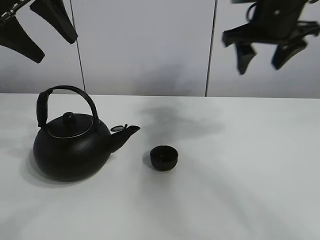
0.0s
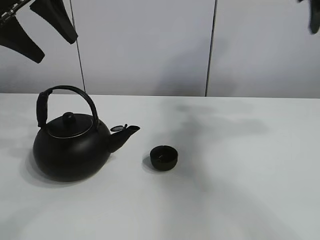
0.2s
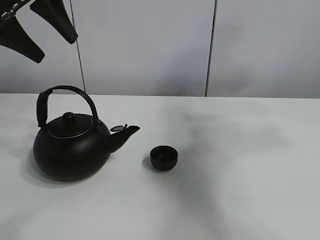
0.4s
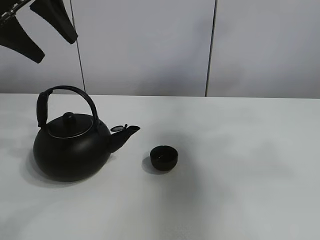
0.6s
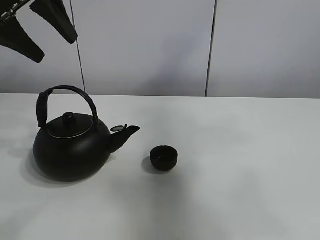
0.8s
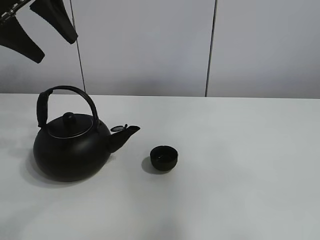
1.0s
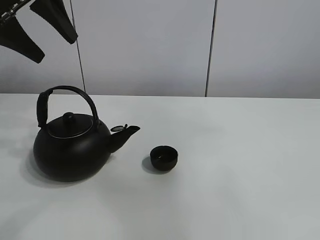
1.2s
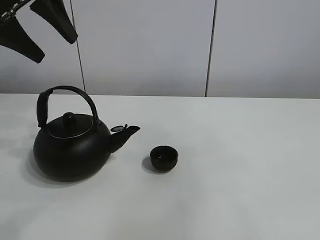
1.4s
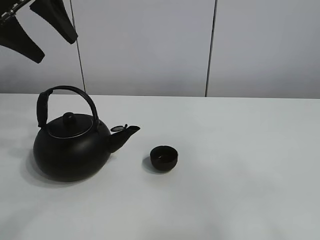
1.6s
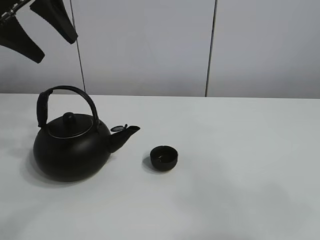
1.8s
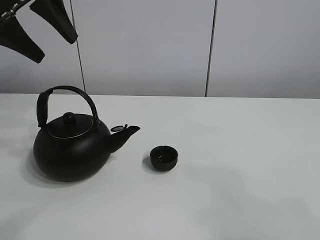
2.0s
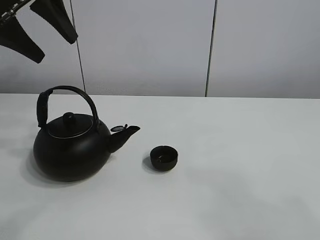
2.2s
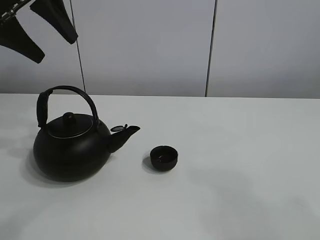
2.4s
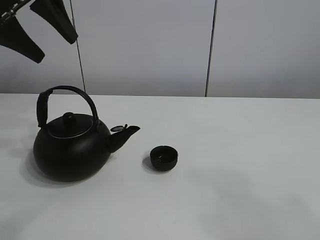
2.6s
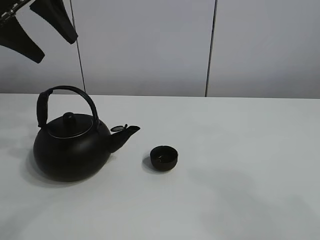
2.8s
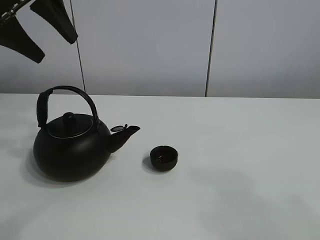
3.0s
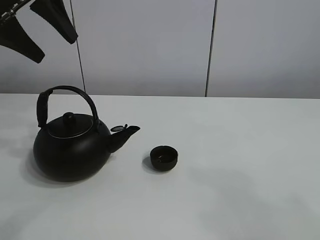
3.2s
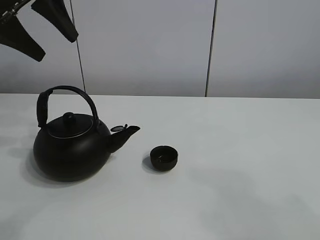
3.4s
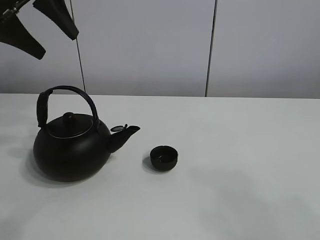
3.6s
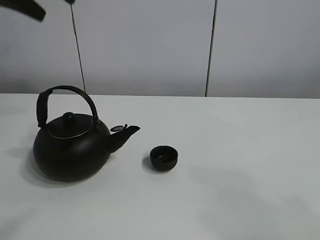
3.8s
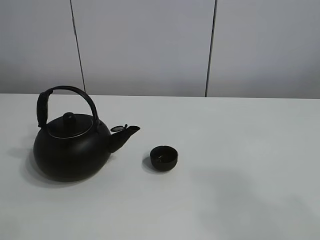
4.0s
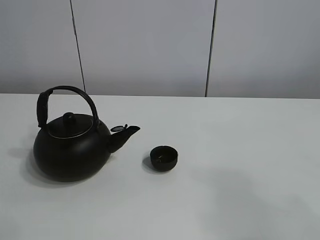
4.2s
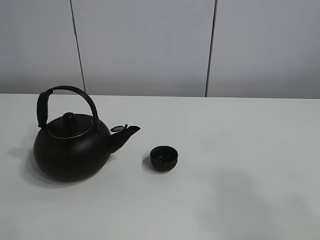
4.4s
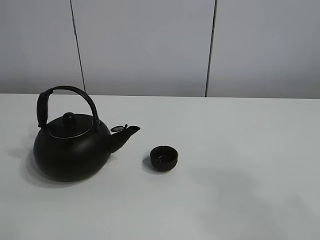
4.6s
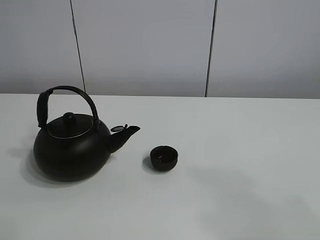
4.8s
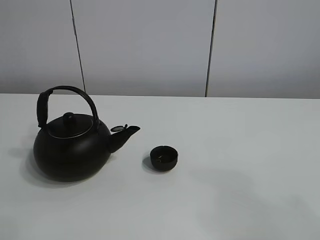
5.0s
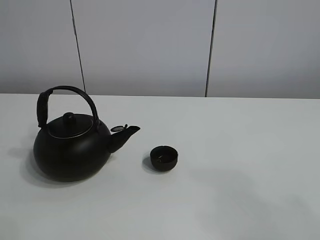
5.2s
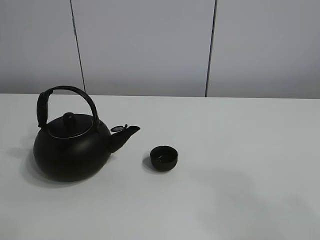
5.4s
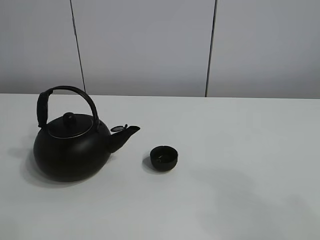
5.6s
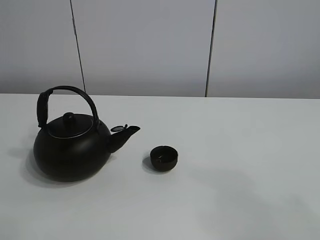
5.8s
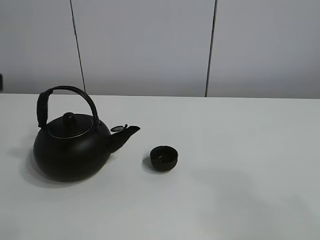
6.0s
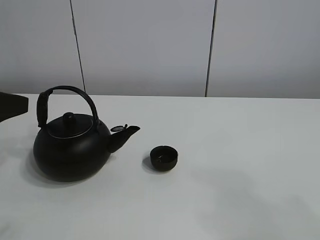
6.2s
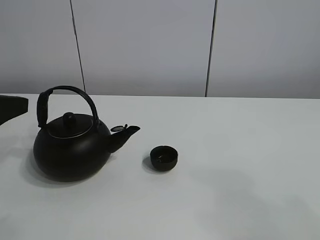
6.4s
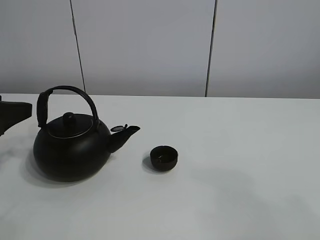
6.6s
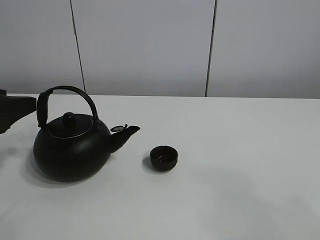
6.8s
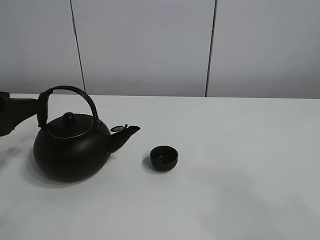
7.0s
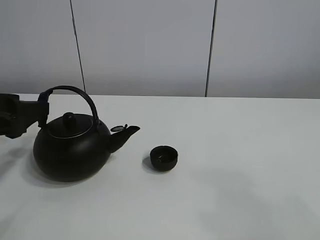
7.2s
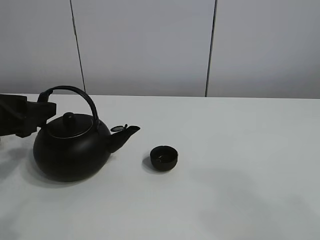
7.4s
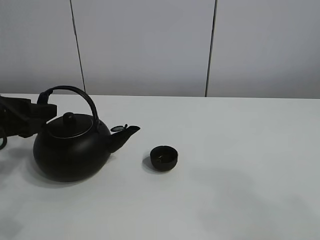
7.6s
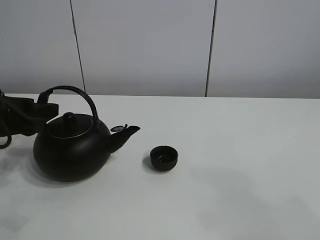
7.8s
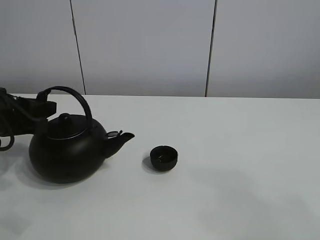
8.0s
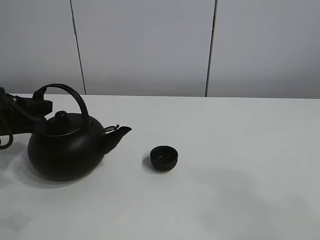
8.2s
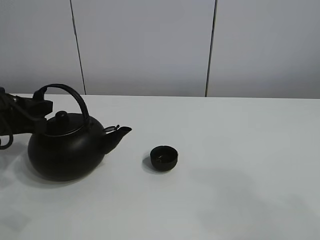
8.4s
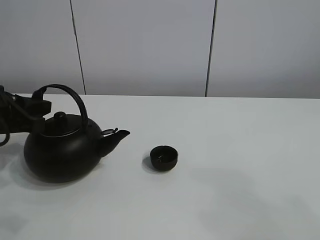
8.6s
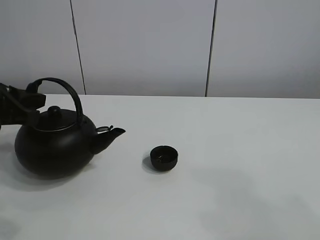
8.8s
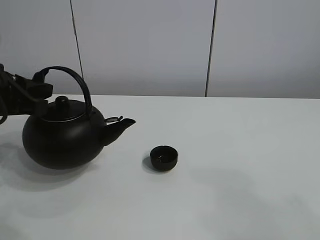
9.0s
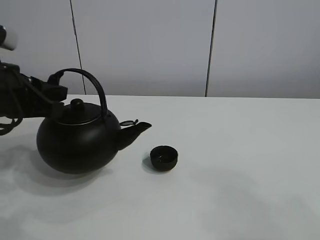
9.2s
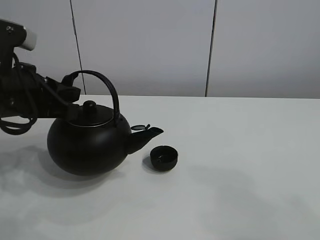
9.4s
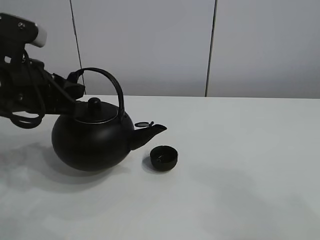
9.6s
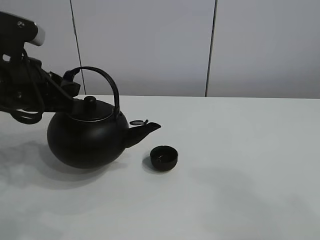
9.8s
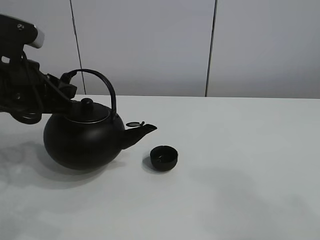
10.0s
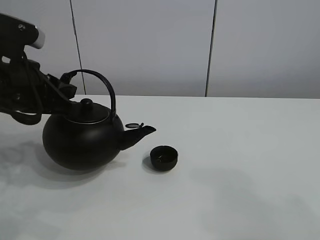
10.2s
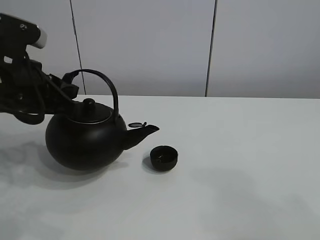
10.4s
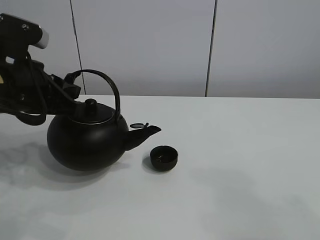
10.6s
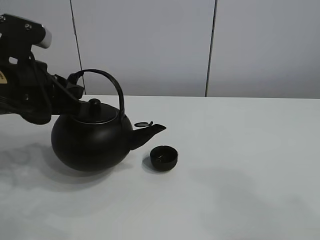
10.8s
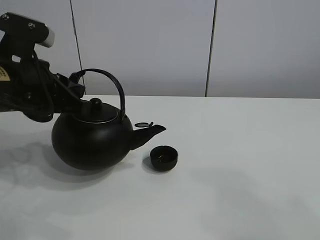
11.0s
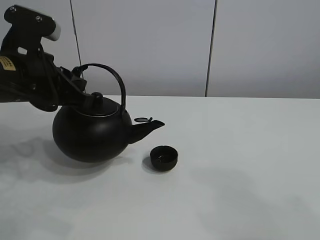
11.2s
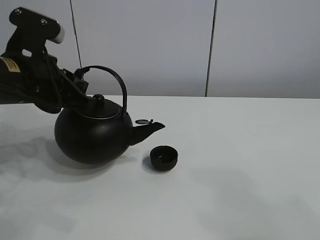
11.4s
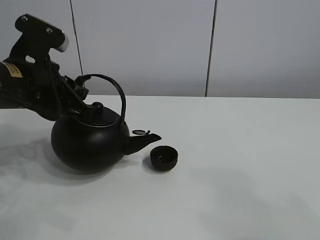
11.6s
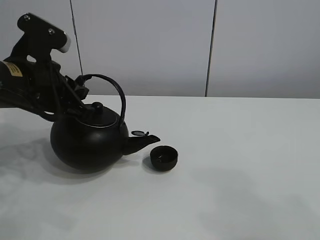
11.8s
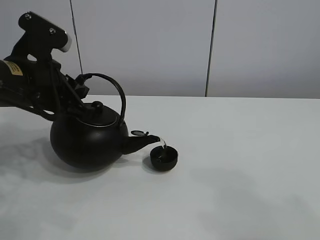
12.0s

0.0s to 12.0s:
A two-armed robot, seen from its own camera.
Task of the whole recording: pour tea into the teacup.
Step, 0.0s to 8.6s: Pick up the teapot with the left gripper.
0.0s to 1.6s: The right gripper moves backward, approximately 40 cm.
1.6s to 3.0s: The right gripper goes about 10 cm downward.
3.0s to 4.4s: The left gripper travels backward and upward by approximately 25 cm.
6.0s to 7.6s: The left gripper moves downward and forward, about 15 cm.
7.6s to 9.0s: The left gripper closes its fingers.
9.0s to 10.4s: The left gripper shifts by approximately 5 cm.
10.4s to 12.0s: The grippers make only small movements.

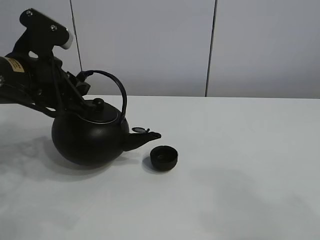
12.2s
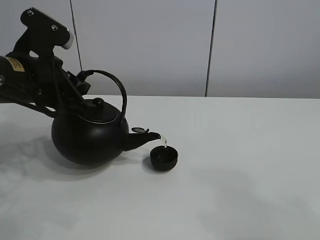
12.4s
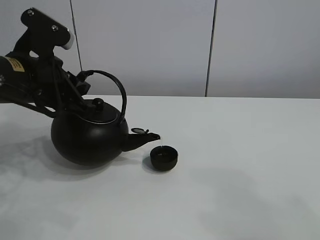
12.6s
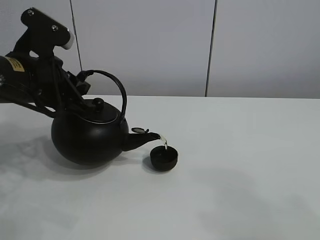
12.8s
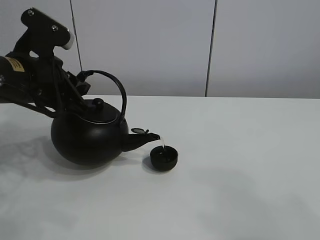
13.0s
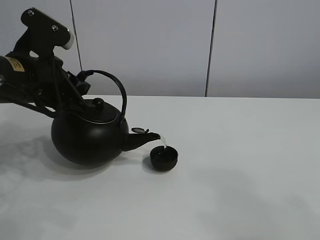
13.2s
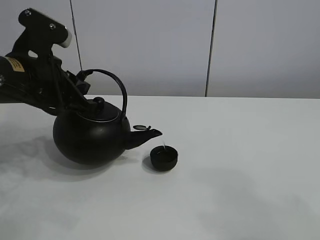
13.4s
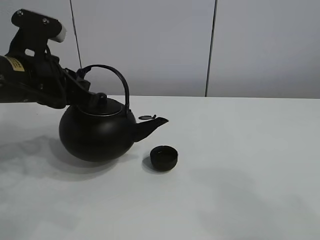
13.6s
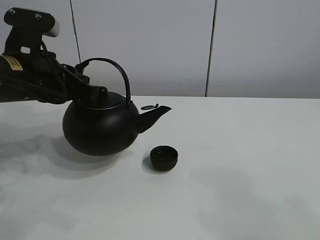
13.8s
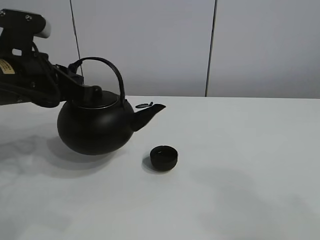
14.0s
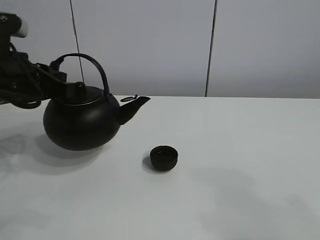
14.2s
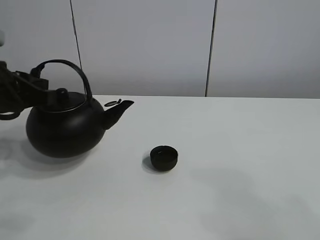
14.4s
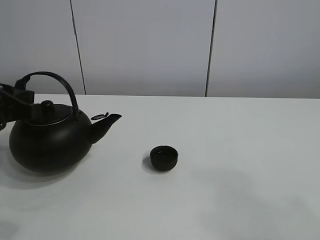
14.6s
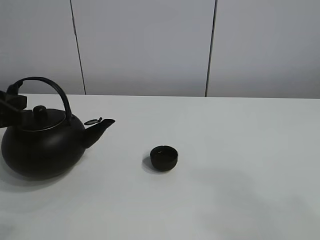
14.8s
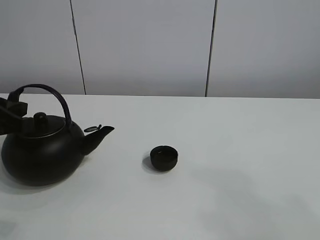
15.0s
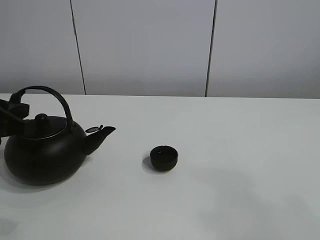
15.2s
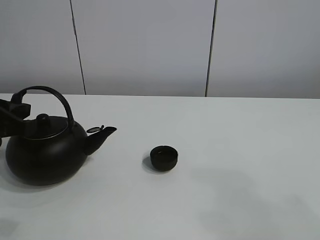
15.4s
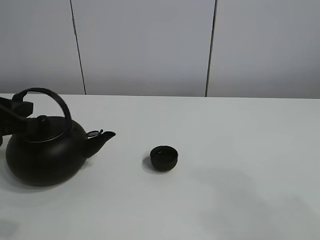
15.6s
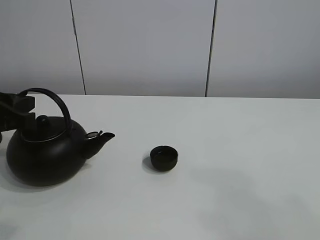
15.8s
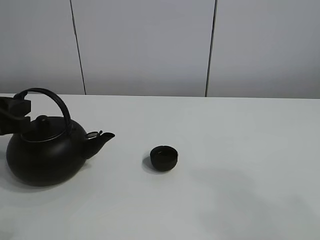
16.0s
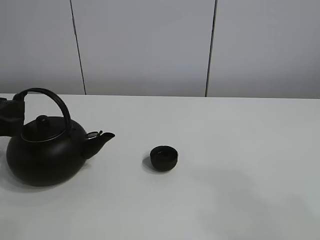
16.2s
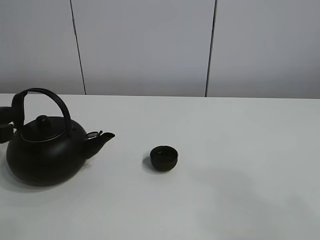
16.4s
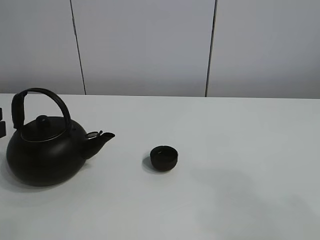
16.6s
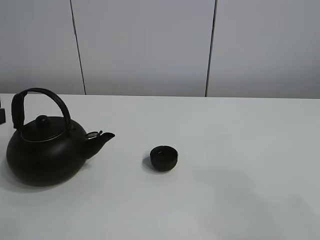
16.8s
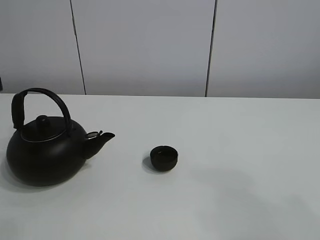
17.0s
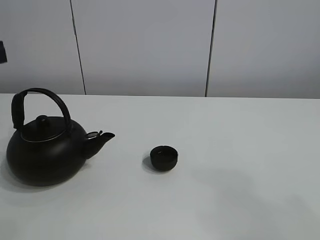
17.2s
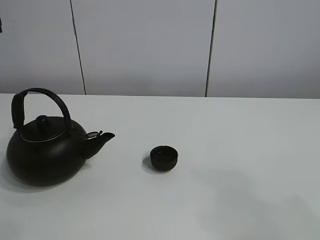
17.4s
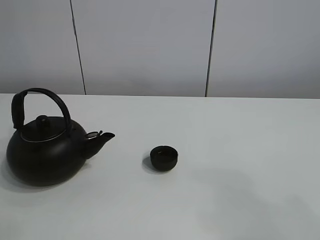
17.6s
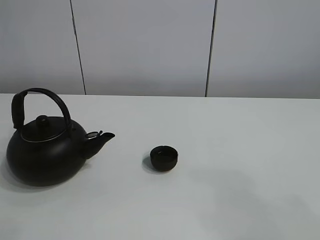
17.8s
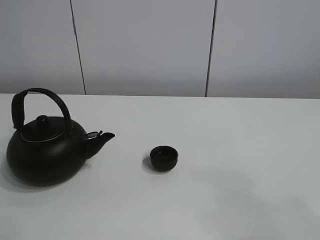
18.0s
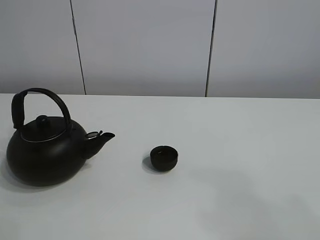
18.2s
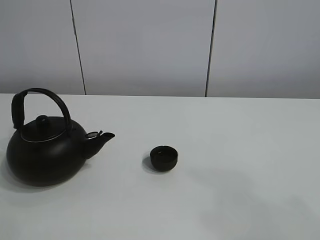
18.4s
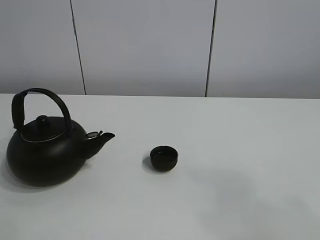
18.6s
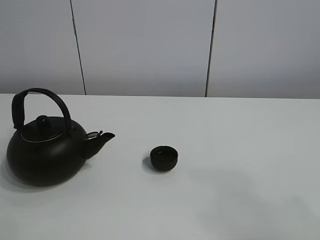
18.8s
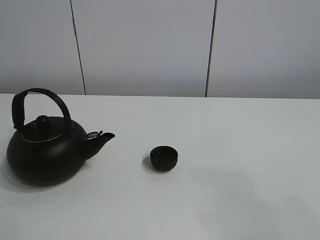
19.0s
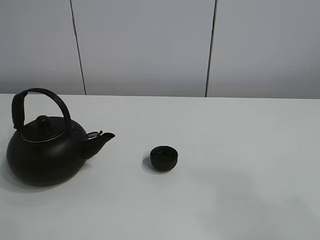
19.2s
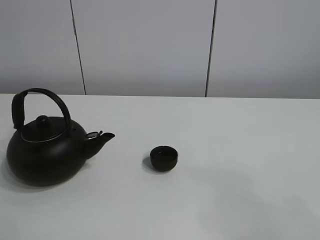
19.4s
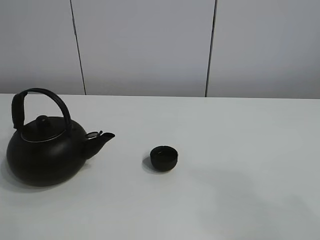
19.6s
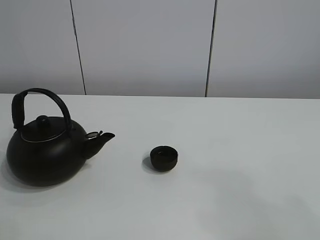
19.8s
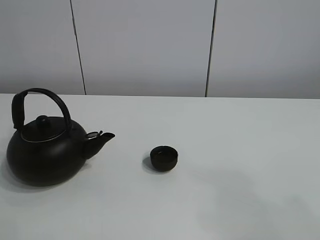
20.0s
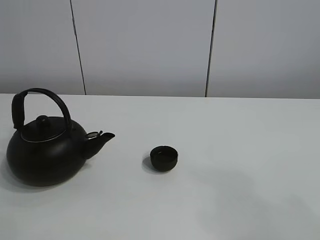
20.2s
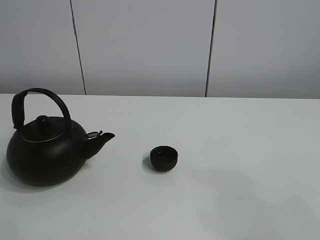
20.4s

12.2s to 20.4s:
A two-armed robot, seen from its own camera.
Task of the whole recording: pour tea into the teacup.
12.2s to 13.8s: There are only small adjustments of the grippers.
13.8s to 15.4s: The left gripper is displaced to the left by approximately 10 cm.
15.4s to 17.2s: The left gripper goes approximately 5 cm upward, and opens up.
